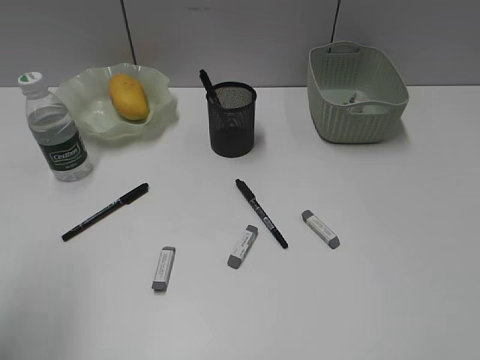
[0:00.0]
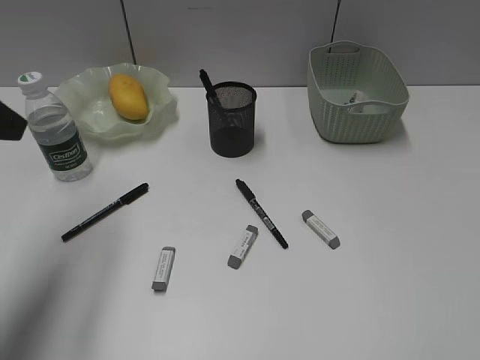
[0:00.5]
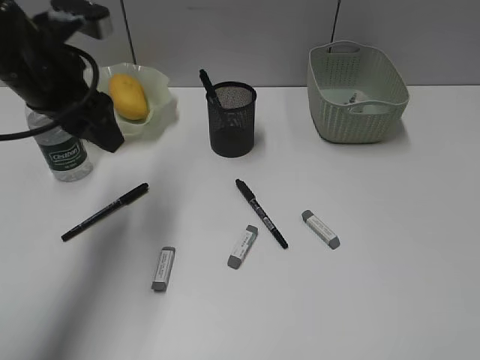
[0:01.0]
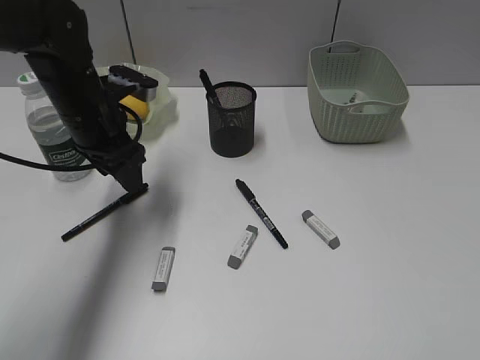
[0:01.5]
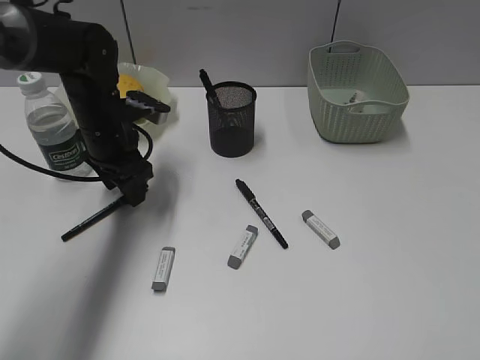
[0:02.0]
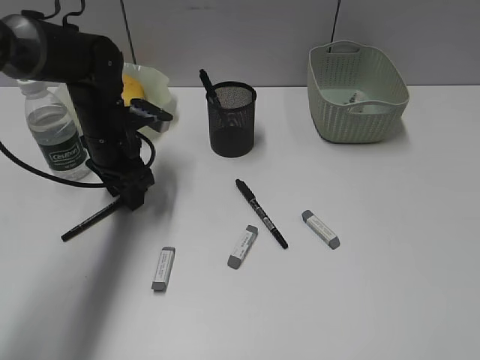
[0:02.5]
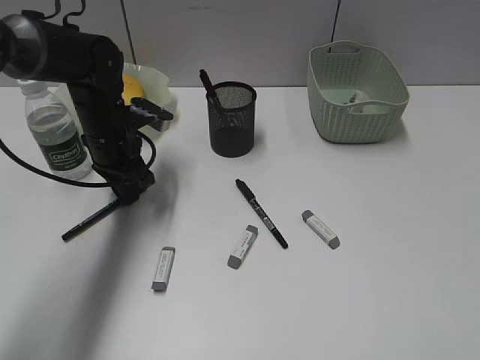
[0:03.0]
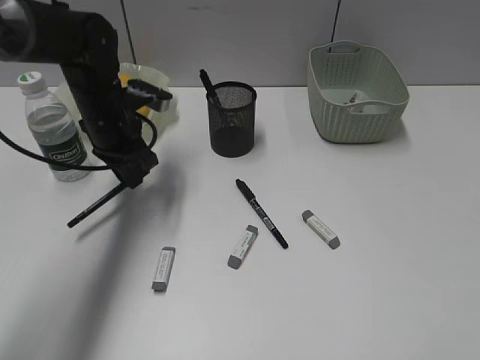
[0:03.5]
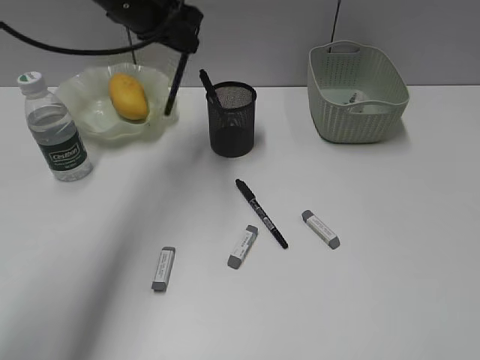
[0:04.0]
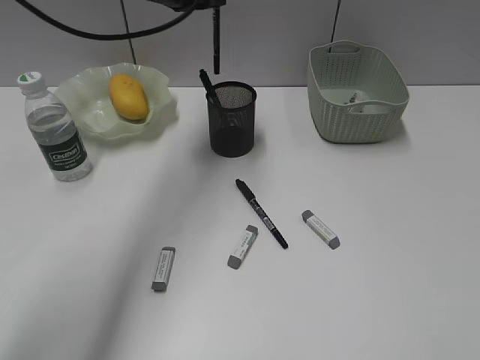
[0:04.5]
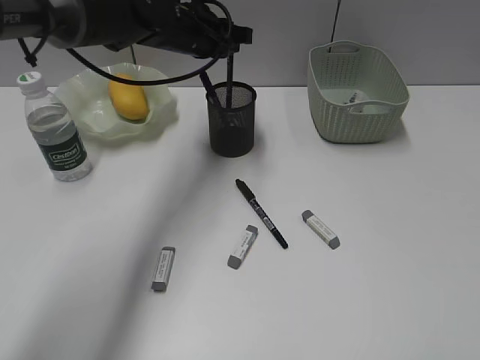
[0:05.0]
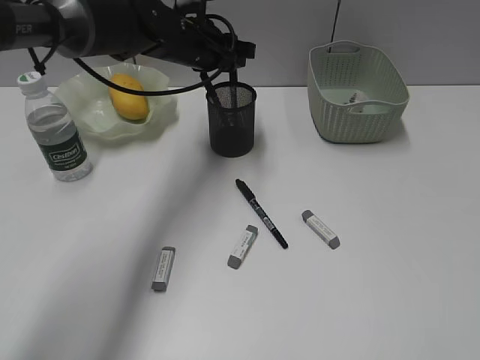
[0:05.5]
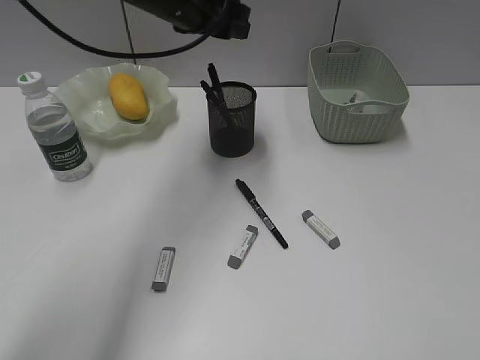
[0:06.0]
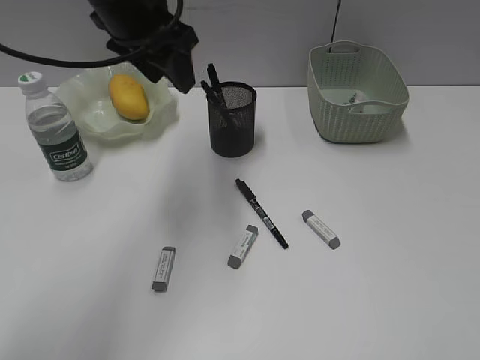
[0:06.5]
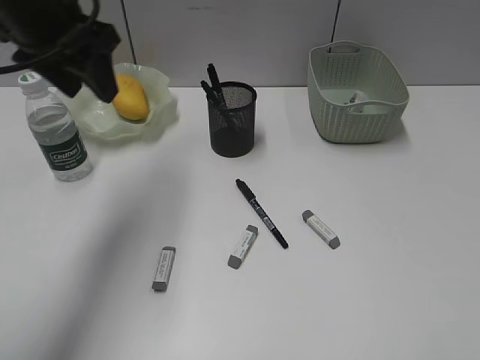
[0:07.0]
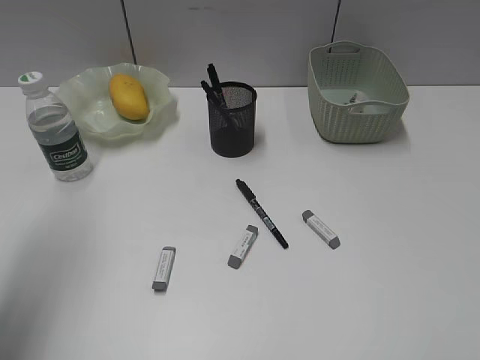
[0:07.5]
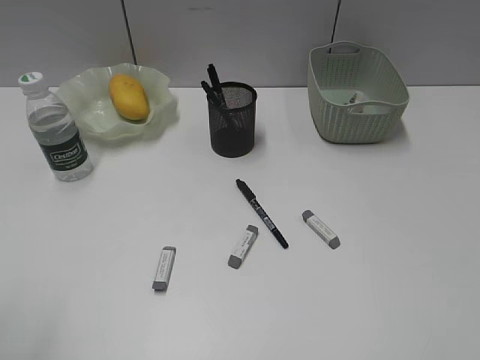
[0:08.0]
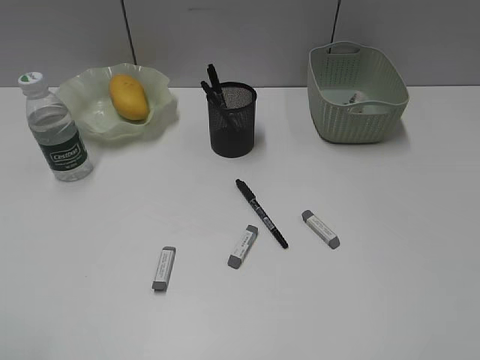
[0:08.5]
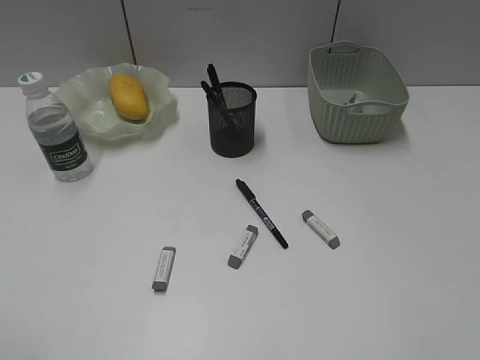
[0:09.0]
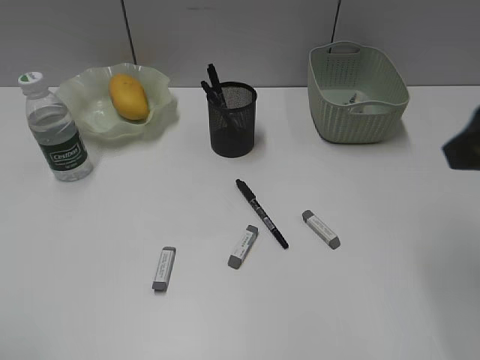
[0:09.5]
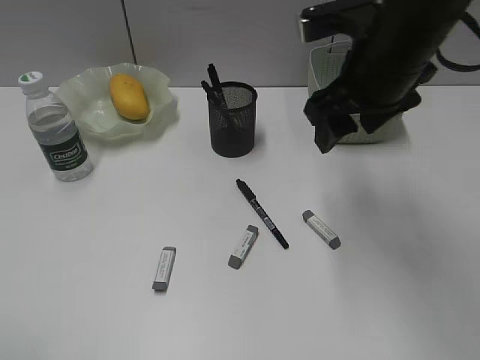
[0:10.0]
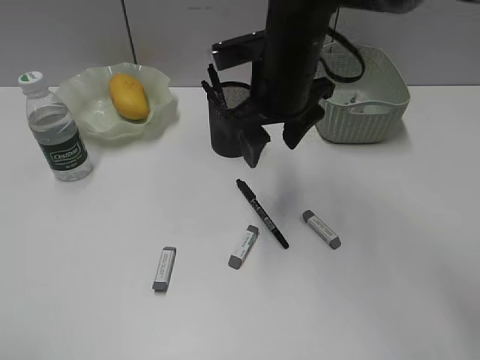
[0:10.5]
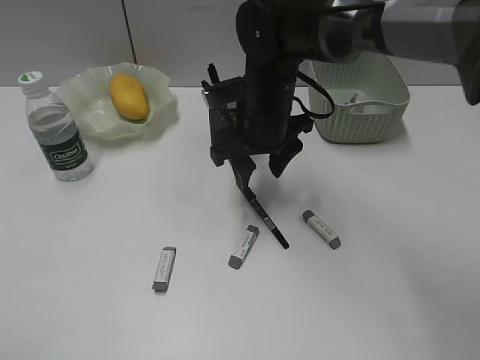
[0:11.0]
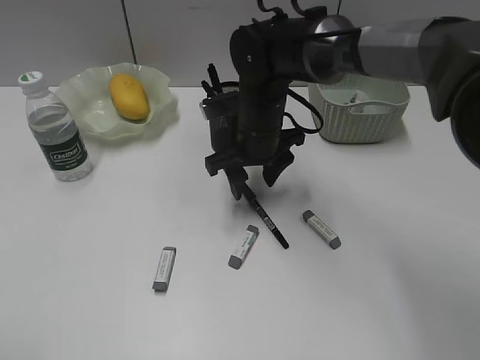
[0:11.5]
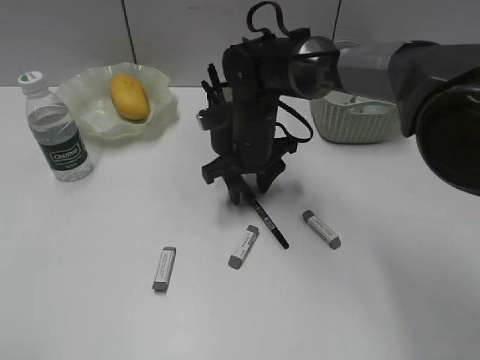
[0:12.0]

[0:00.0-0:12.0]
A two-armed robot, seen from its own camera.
Step, 0:00.0 to 0:03.0: Grasp the black pen with left gripper.
Step, 0:03.5 to 0:05.5: Place the black pen in pen holder with left gripper.
0:00.0 to 0:02.0: The left gripper shifts some 35 cm forward, downward and to the right.
0:02.0 to 0:04.0: The left gripper heads upward, covering some 15 cm, and closes up.
0:04.0 to 0:06.0: The left gripper goes roughly 5 cm to the right, moves some 10 cm downward and comes back, and opens.
0:06.0 to 0:08.0: The left gripper moves backward and to the left, about 50 cm.
0:08.0 to 0:10.0: The right gripper heads forward and to the left, covering some 35 cm.
0:10.0 to 0:12.0: The right gripper travels downward, to the left and forward by approximately 20 cm.

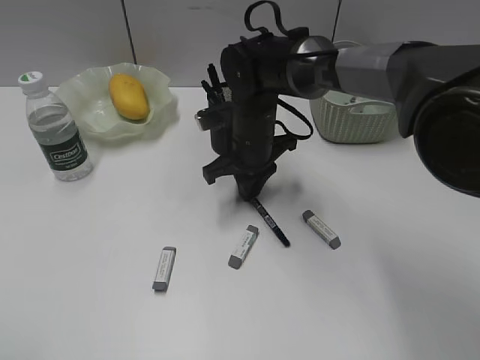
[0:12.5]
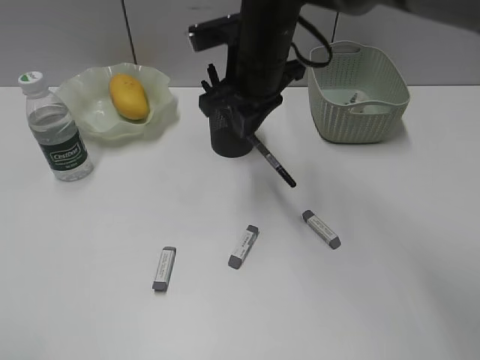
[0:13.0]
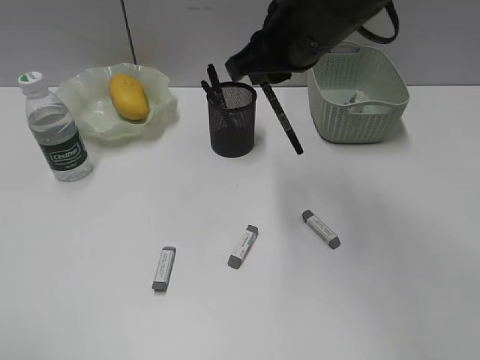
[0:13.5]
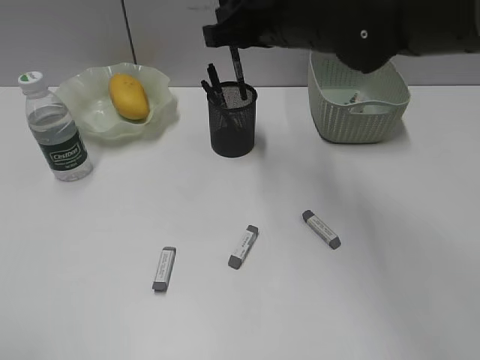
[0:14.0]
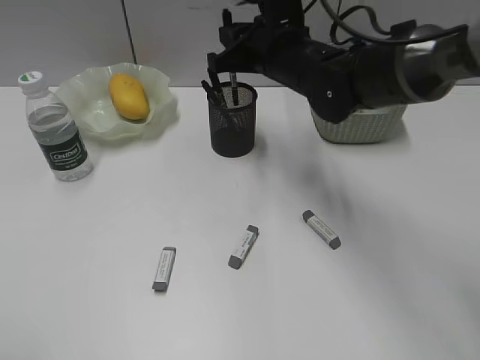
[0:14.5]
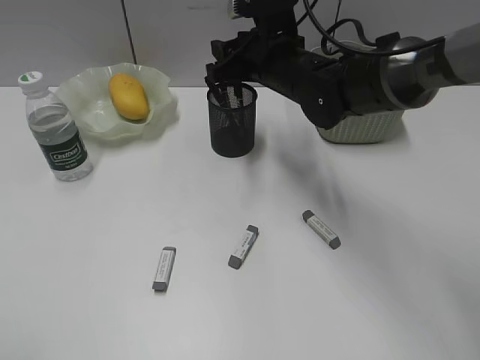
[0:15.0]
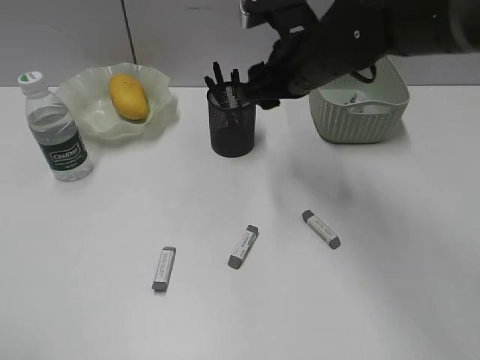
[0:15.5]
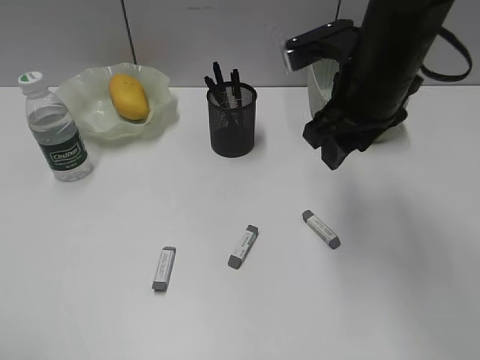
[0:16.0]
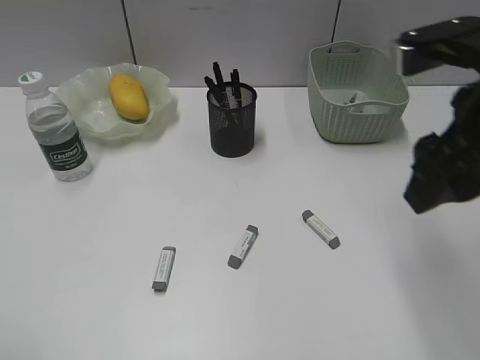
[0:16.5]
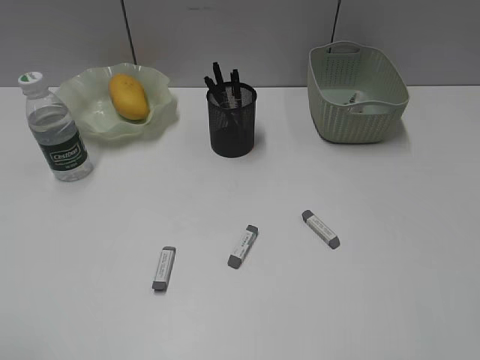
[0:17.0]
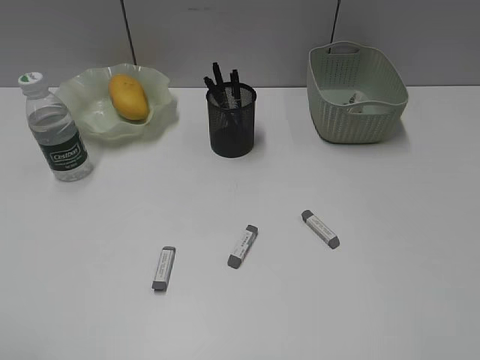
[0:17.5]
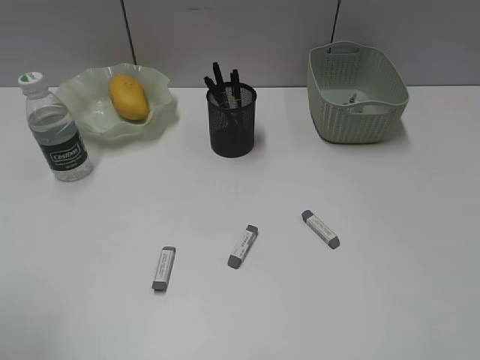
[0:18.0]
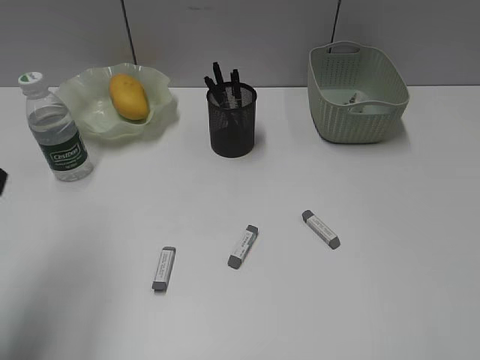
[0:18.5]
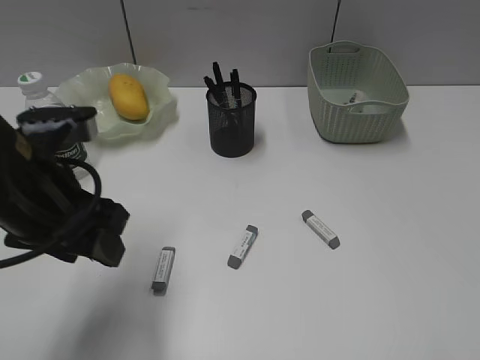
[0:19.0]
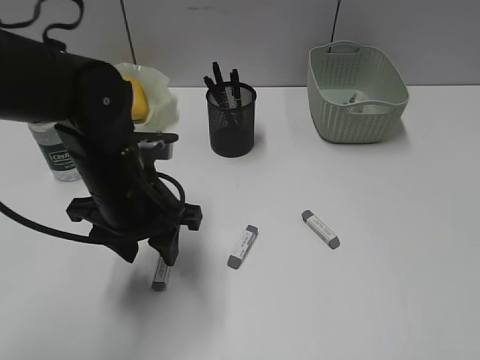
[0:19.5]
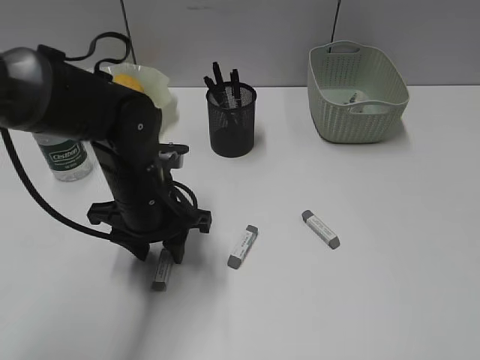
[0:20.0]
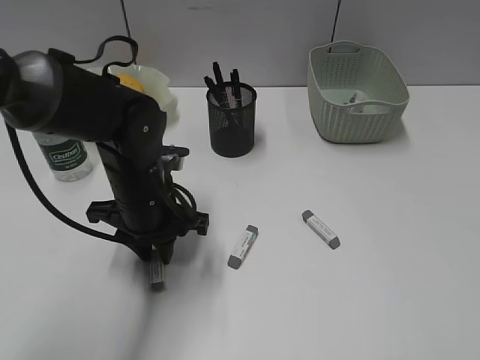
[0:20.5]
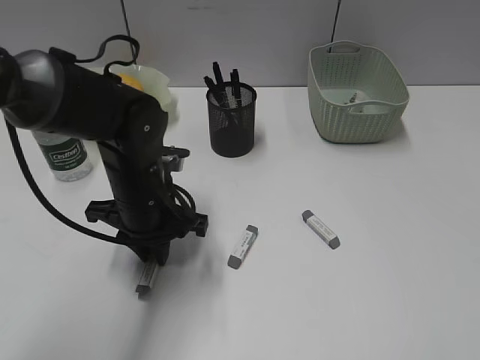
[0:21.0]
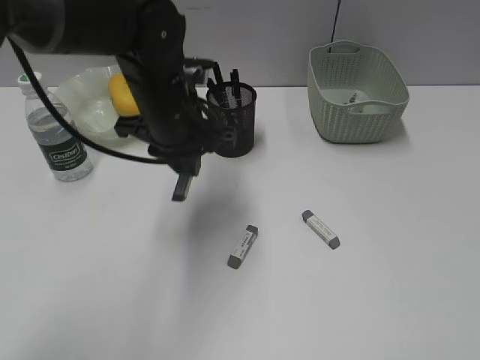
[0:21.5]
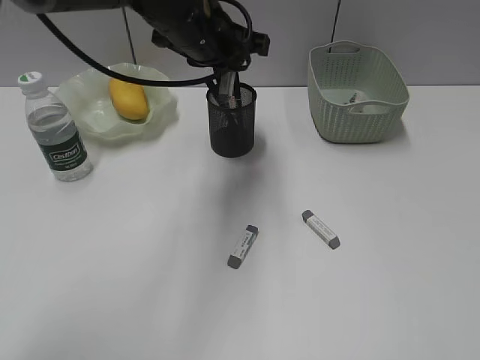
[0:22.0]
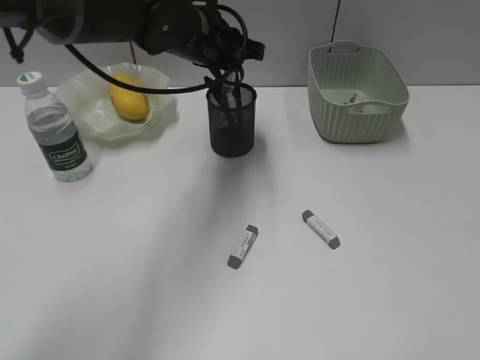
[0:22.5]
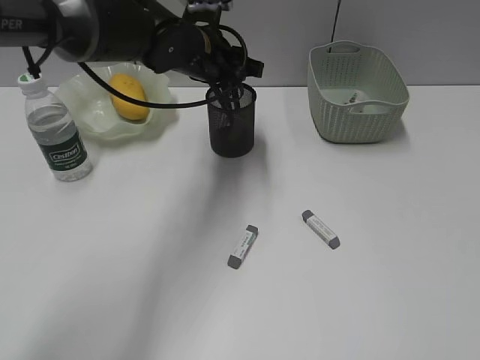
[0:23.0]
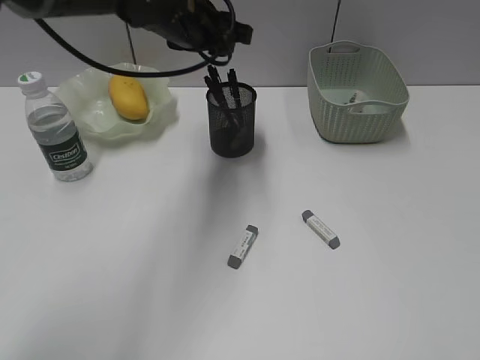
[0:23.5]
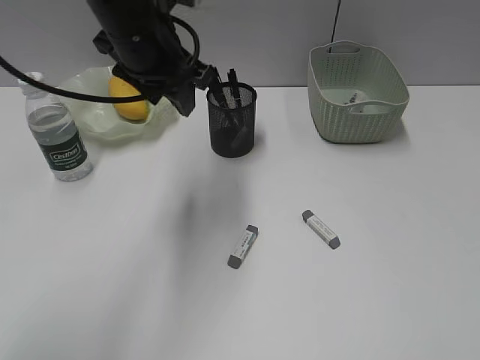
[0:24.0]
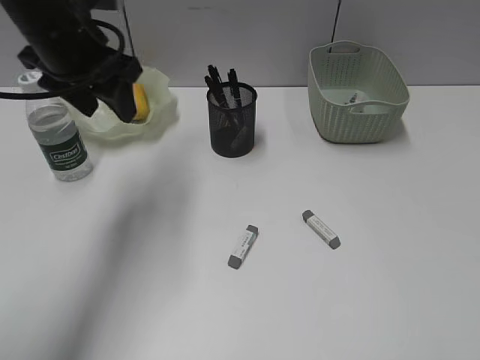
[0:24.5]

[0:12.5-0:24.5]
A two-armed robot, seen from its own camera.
Step, 0:12.5 to 0:15.5: Place the black pen in pen holder with right gripper.
Step, 0:16.0 to 0:20.5: Grasp the eraser with left gripper.
Step, 0:21.0 to 0:23.0: Place the eraser in pen holder with left gripper.
0:12.5 to 0:14.5: The right gripper is displaced upward by roughly 10 cm.
0:14.5 to 0:16.5: The right gripper goes approximately 25 cm backward, to the right and upward, and opens its fingers.
0:16.5 to 0:18.5: The left gripper goes about 15 cm forward. Meanwhile the right gripper moves backward and to the right, some 25 cm.
0:18.5 to 0:20.5: The left gripper shifts roughly 25 cm downward, to the right and forward, and closes up.
0:20.5 to 0:22.5: The left gripper moves forward, upward and to the right, some 20 cm.
0:22.5 to 0:24.5: The left gripper heads to the left and backward, covering approximately 15 cm, and opens.

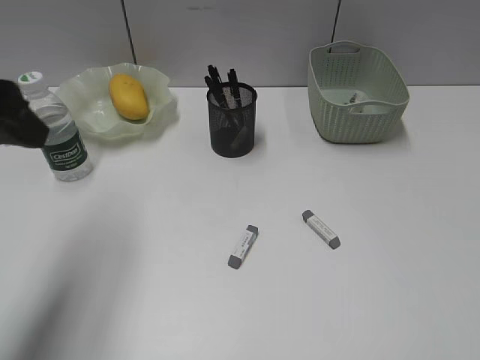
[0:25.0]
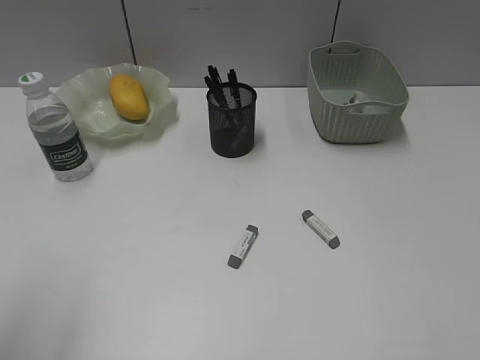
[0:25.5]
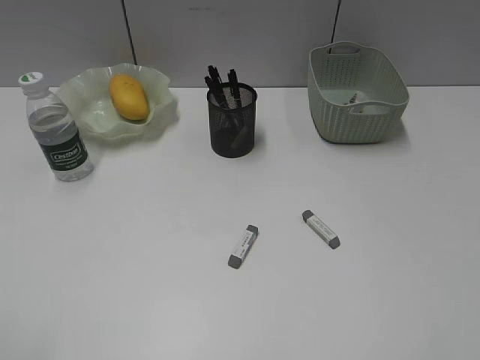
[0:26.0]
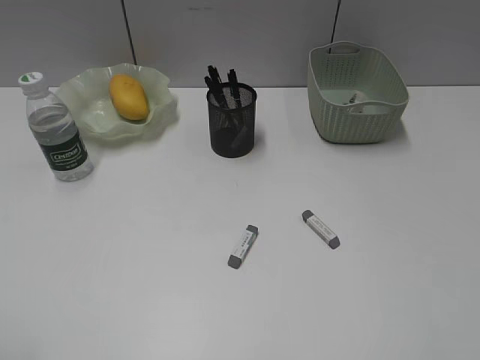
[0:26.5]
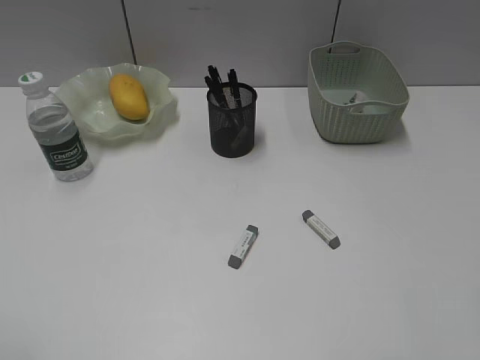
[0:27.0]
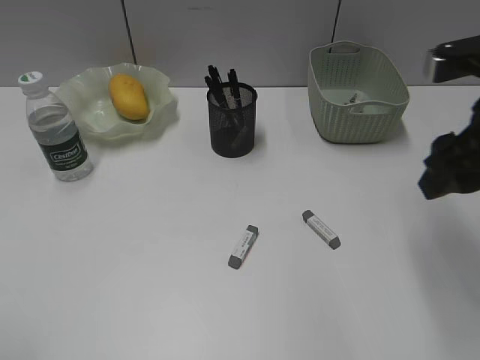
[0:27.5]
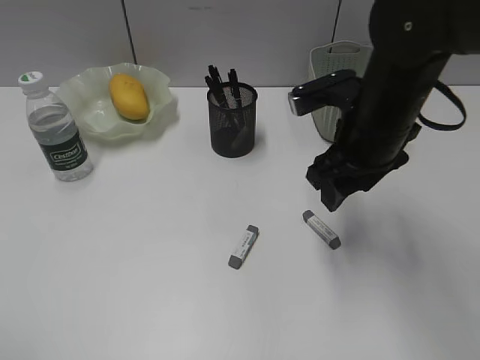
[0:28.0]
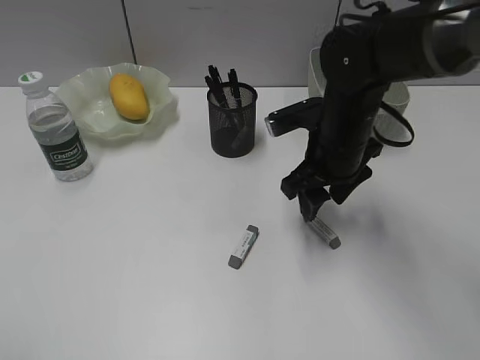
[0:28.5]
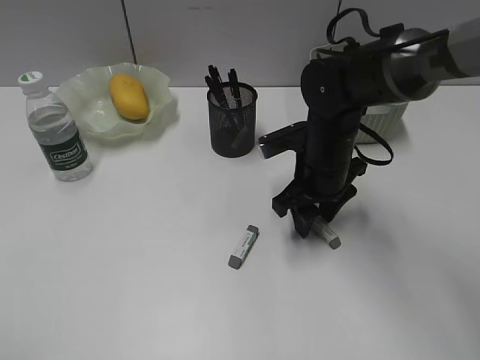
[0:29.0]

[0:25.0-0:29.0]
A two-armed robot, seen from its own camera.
0:25.0 to 0:27.0: The left gripper travels backward by roughly 20 cm.
0:27.0 to 0:29.0: The right gripper moves forward, to the left and downward, approximately 35 cm.
